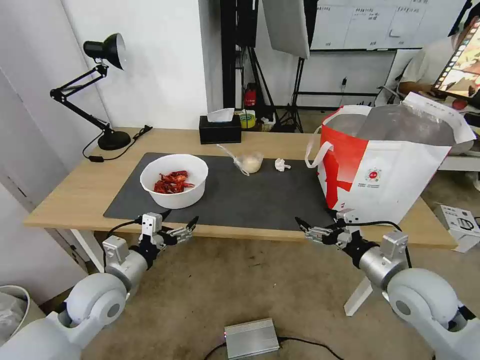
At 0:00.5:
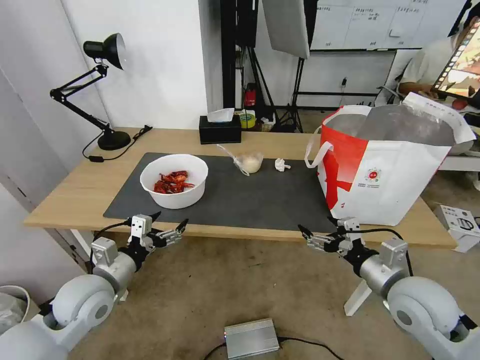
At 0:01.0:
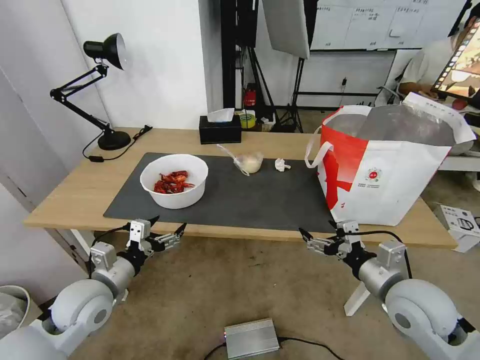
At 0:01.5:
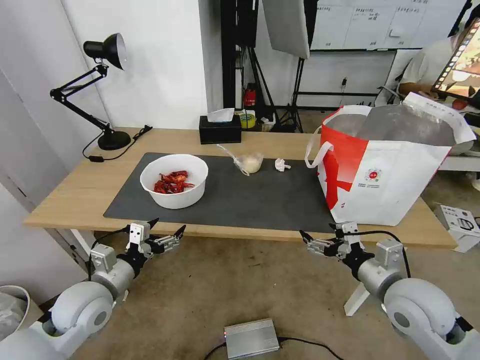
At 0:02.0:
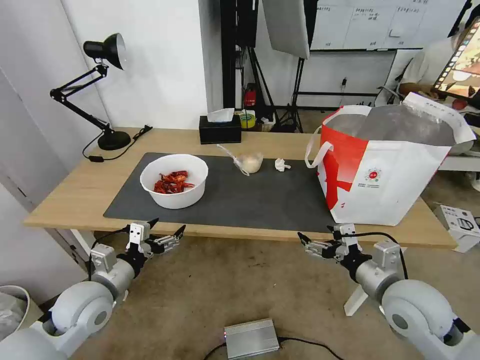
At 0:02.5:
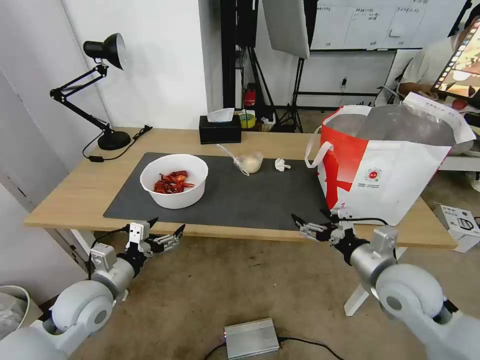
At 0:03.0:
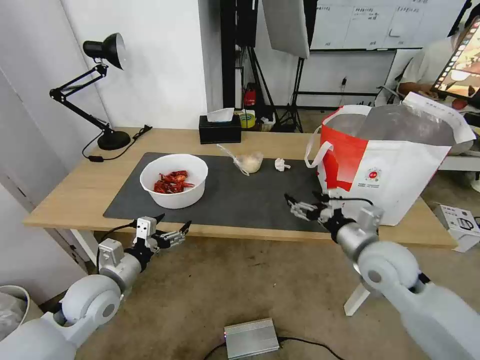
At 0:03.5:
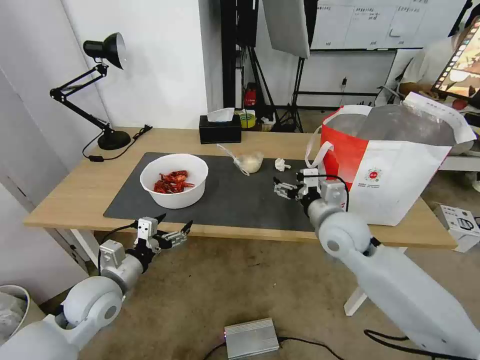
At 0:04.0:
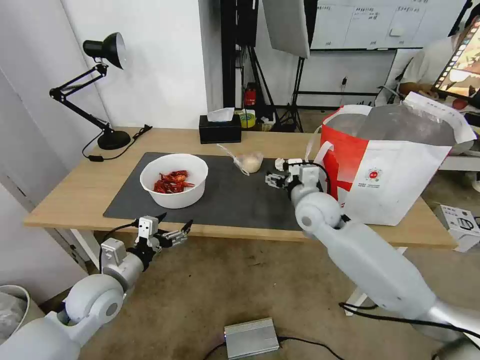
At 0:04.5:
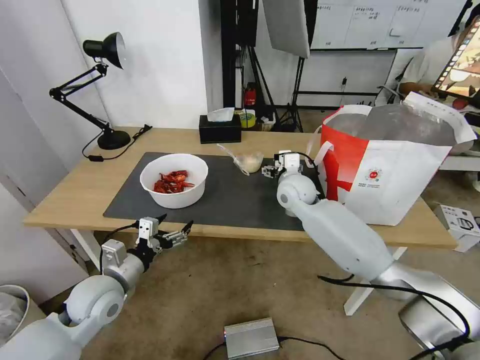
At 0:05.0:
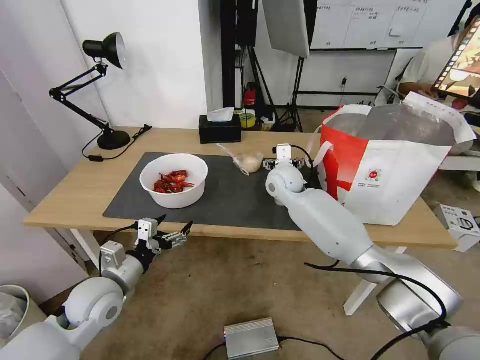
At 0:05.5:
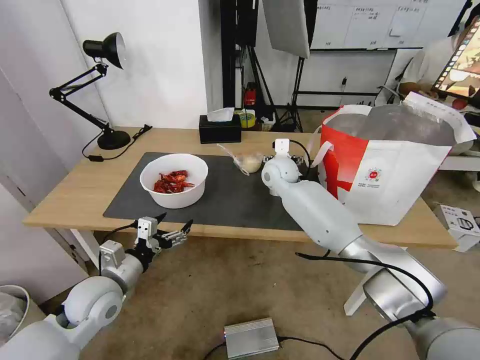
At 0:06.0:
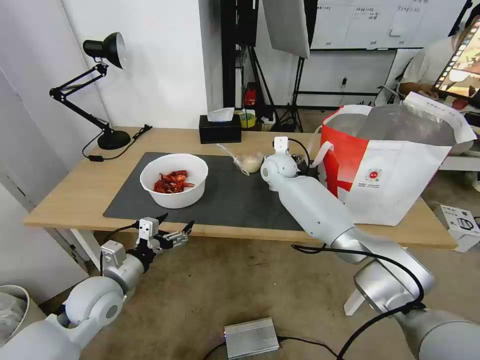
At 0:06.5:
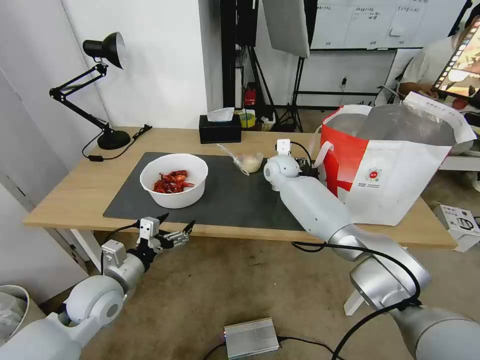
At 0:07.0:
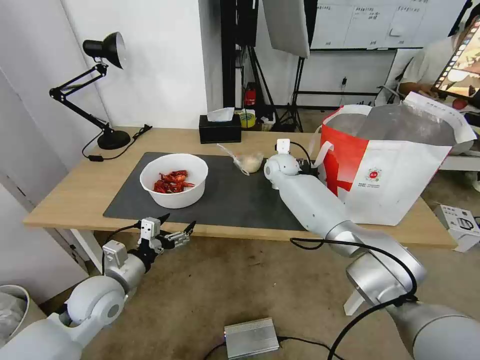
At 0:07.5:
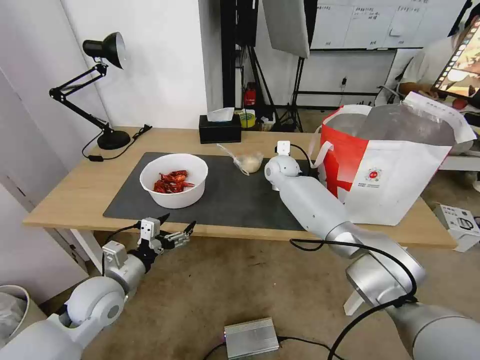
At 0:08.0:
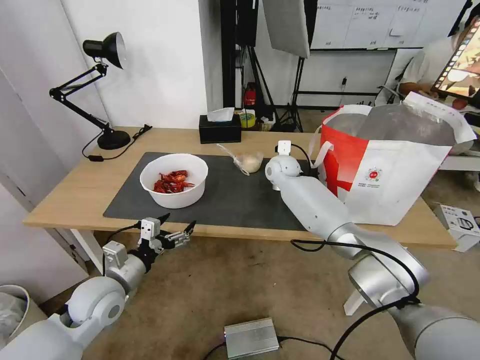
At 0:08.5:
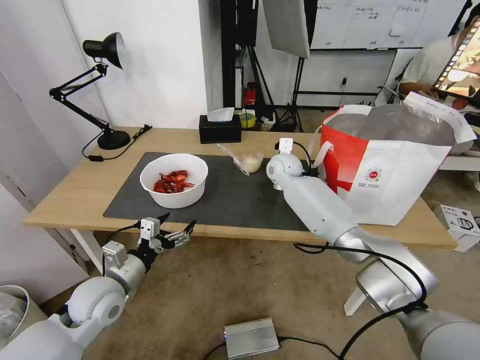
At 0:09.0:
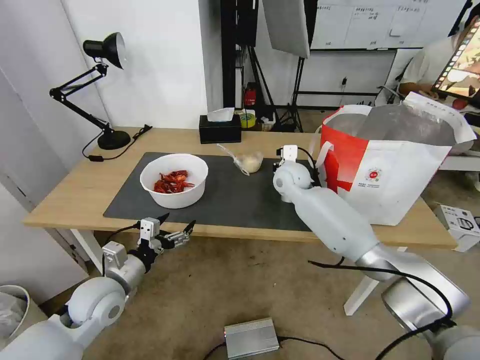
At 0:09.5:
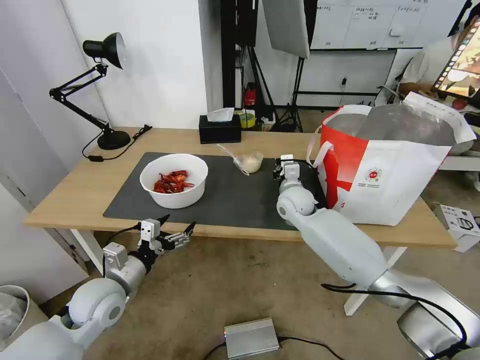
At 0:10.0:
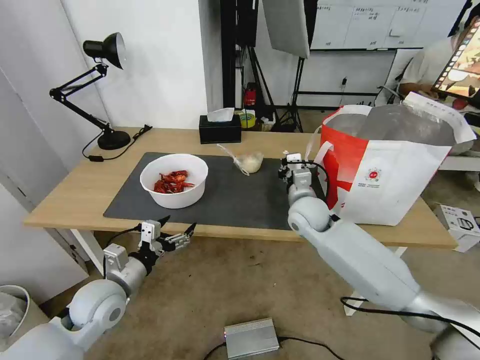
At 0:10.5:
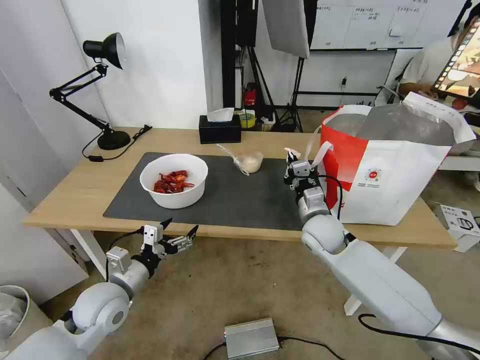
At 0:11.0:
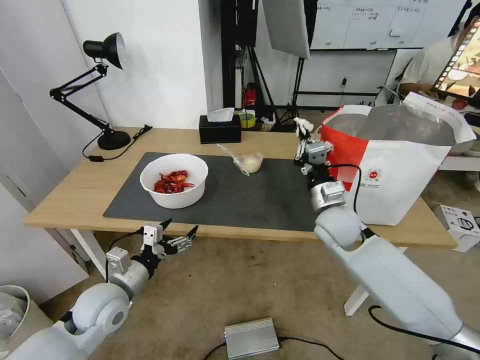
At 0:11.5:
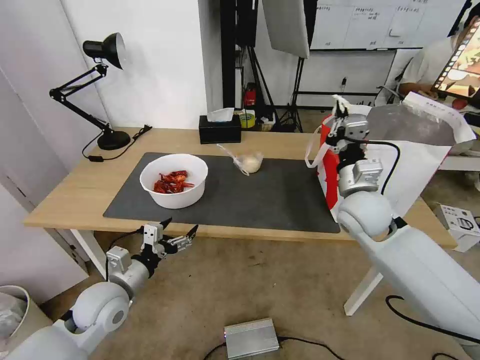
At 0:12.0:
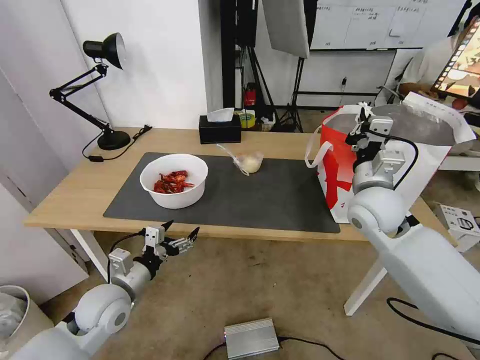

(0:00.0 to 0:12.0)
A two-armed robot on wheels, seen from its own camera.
Task of the whole recording: Pick up the trash from the table and place it into the takeout bag.
0:00.0 - 0:02.0: The grippers stay close to where they were, moving slightly.
0:02.0 - 0:04.0: The right gripper is displaced forward and to the left by approximately 25 cm.
0:04.0 - 0:06.0: The right gripper travels forward by about 15 cm.
0:06.0 - 0:08.0: The right gripper closes its fingers.
0:08.0 - 0:10.0: The right gripper moves backward, approximately 15 cm.
0:10.0 - 0:12.0: The right gripper moves upward, to the right and backward, about 15 cm.

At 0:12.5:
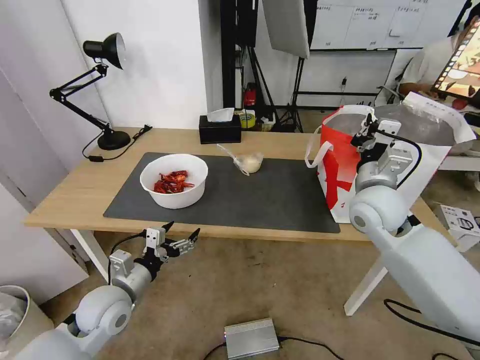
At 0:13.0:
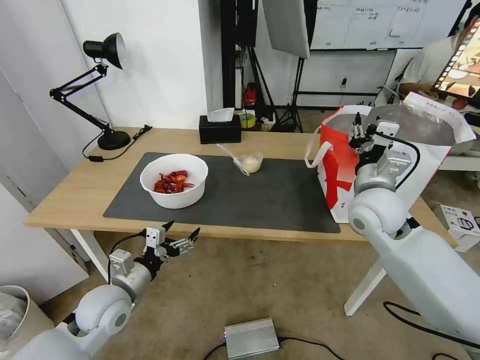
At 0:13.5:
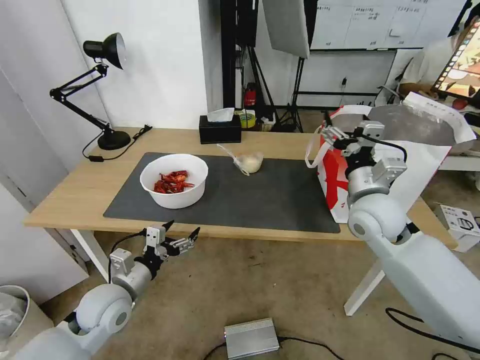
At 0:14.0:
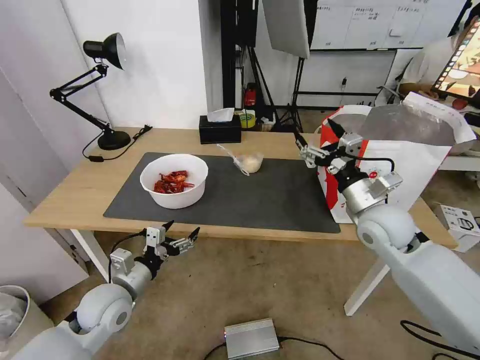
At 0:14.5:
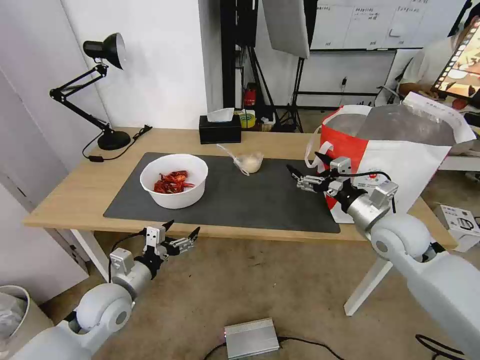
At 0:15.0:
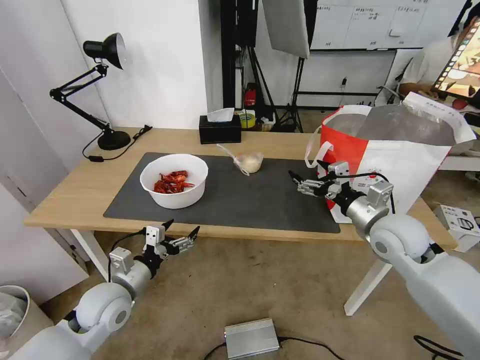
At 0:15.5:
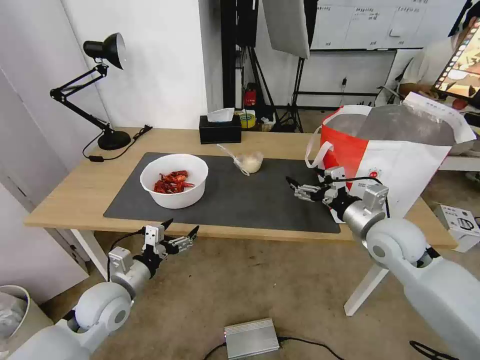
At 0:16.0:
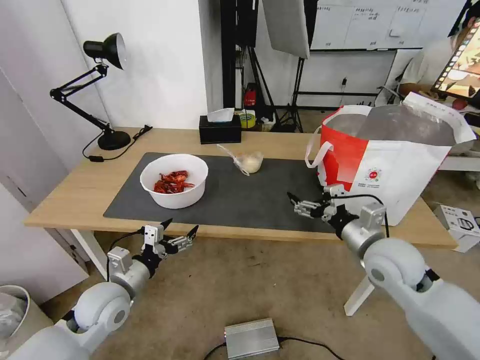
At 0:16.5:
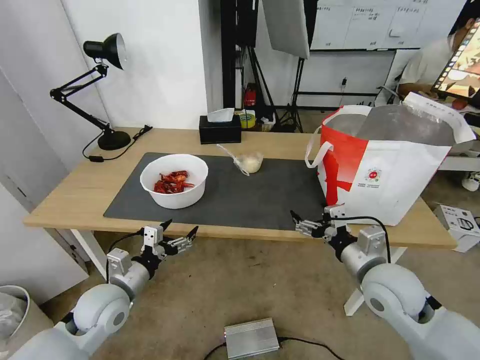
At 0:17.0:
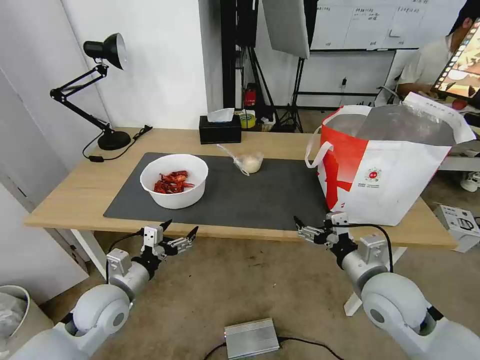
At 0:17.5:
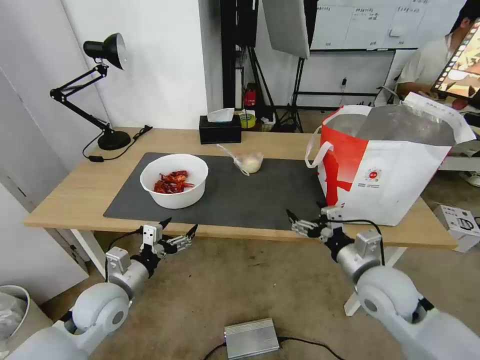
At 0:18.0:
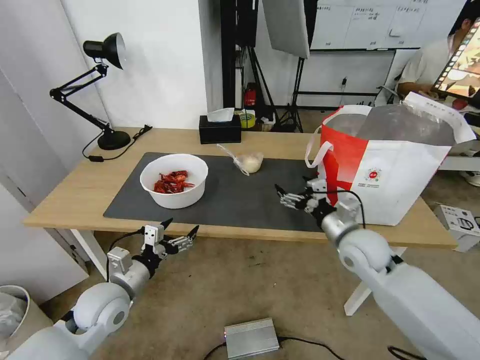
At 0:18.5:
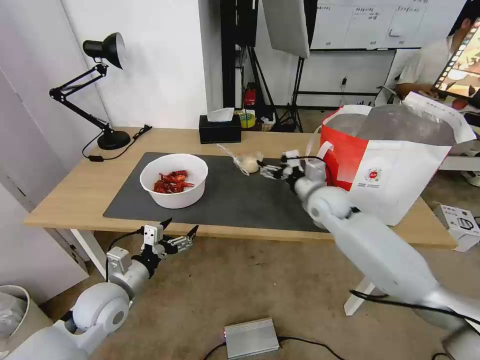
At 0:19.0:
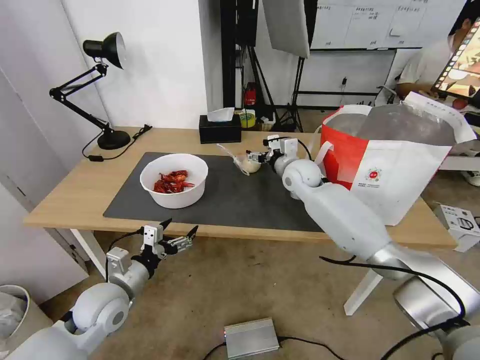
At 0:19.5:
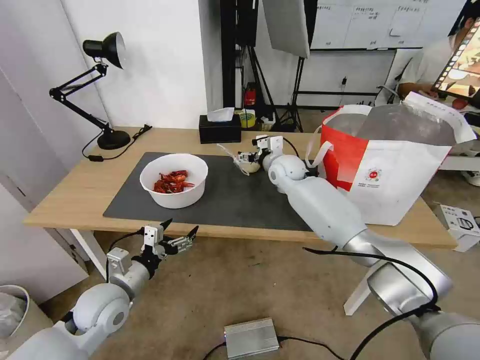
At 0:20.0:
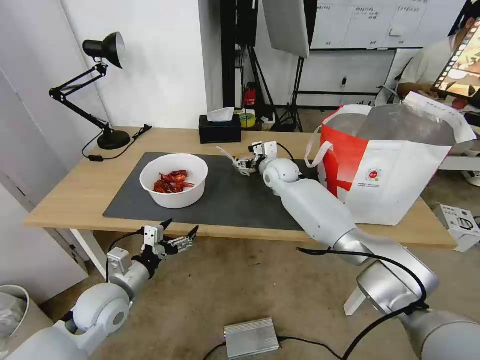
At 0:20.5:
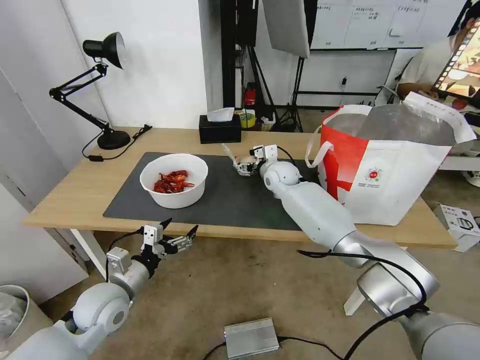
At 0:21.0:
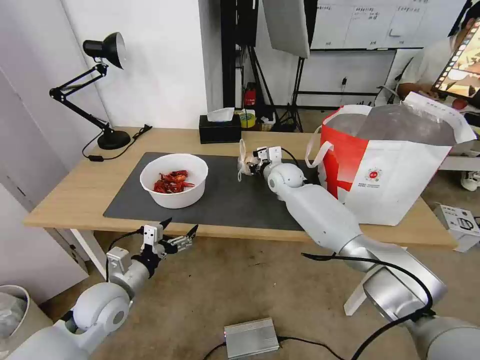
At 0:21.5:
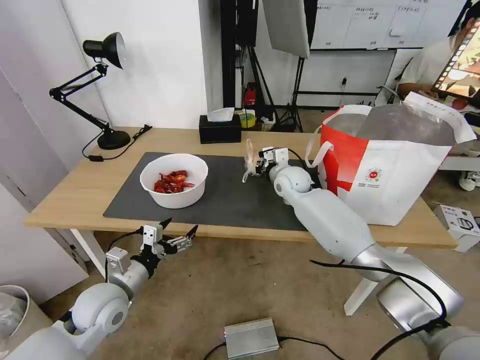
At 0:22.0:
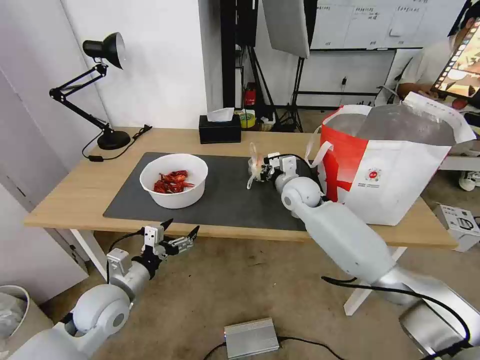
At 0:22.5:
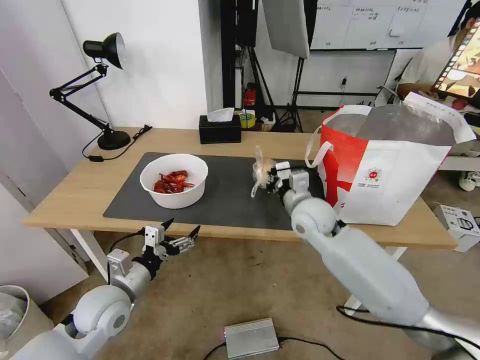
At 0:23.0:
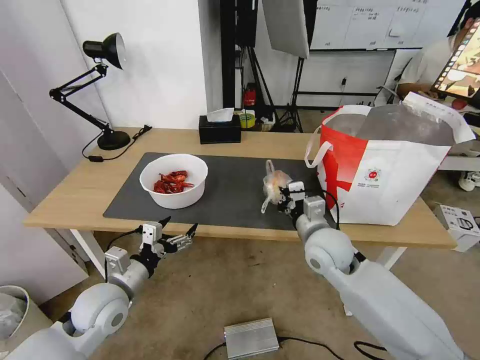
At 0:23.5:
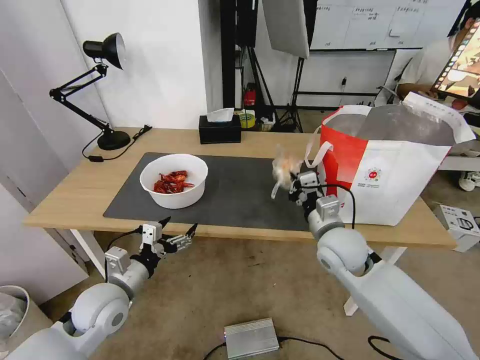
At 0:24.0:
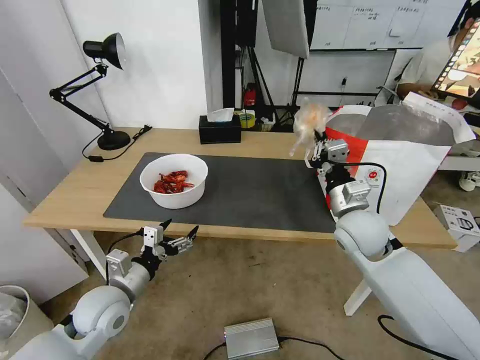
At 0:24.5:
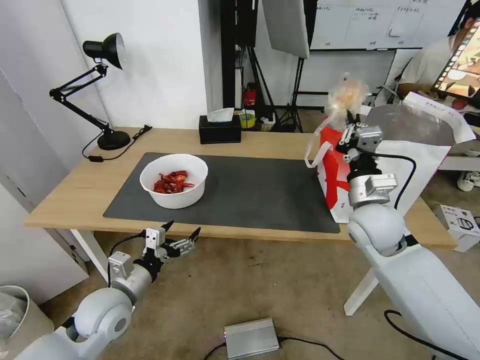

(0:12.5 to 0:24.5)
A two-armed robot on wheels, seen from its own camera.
Task of the whole recording: Pick up the trash from the table and place it into the takeout bag.
0:12.5 - 0:14.5: The right gripper heads to the right, covering approximately 5 cm, and opens its fingers.
0:14.5 - 0:16.5: The right gripper heads backward, covering about 10 cm.
0:16.5 - 0:18.5: The right gripper shifts roughly 20 cm forward.
0:18.5 - 0:20.5: The right gripper is displaced forward and to the left by approximately 15 cm.
0:20.5 - 0:22.5: The right gripper goes approximately 15 cm backward, and closes.
0:22.5 - 0:24.5: The right gripper is displaced to the right and backward by approximately 10 cm.

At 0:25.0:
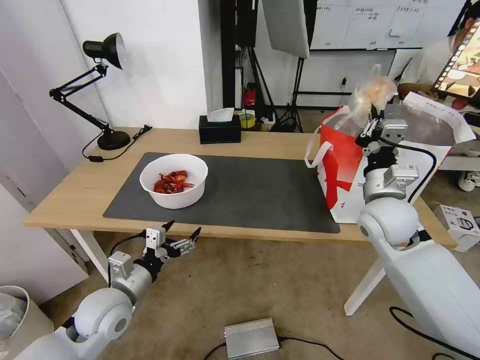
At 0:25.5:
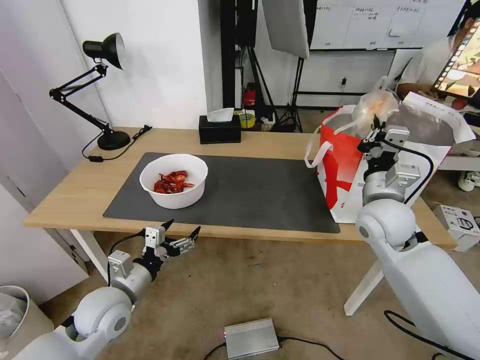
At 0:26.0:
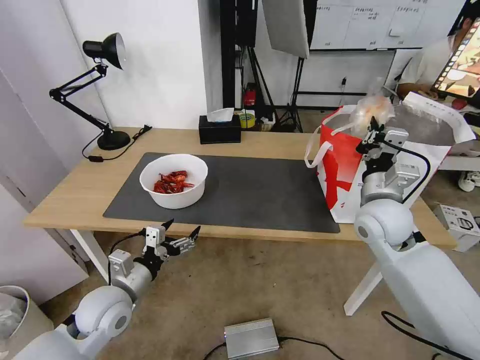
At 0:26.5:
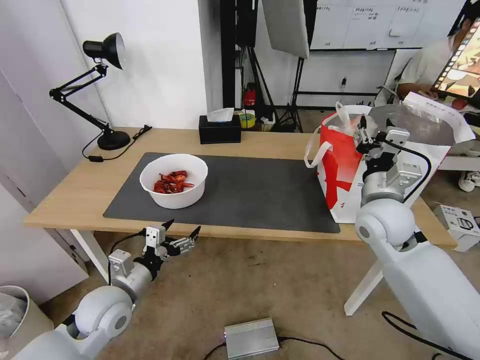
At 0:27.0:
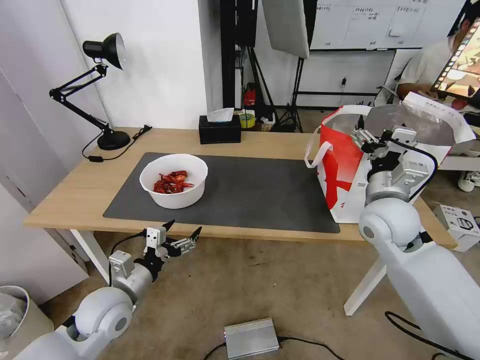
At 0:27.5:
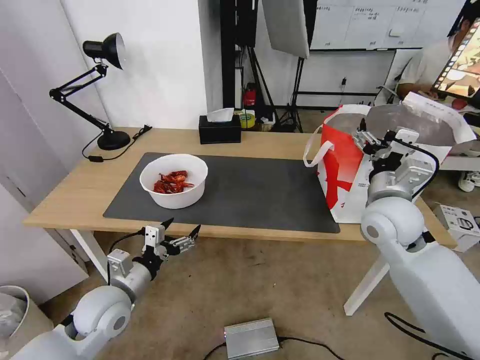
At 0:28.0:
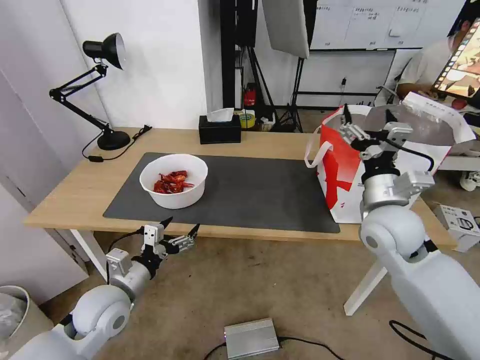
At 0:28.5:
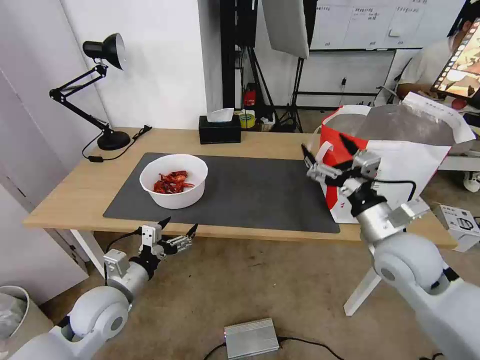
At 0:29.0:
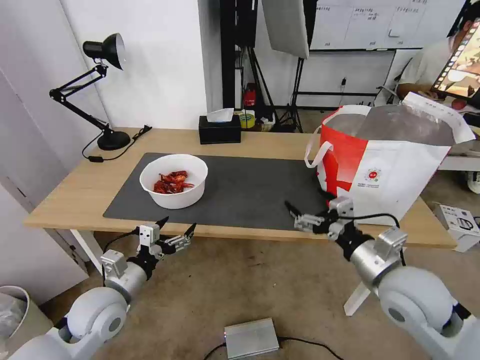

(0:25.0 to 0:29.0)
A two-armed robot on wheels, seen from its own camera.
Task of the whole recording: Pick up the trash from the table and place it into the takeout bag.
0:25.0 - 0:27.0: The right gripper opens up.
0:27.0 - 0:29.0: The right gripper travels backward by approximately 10 cm.
